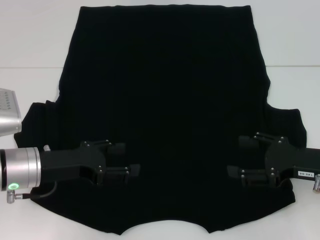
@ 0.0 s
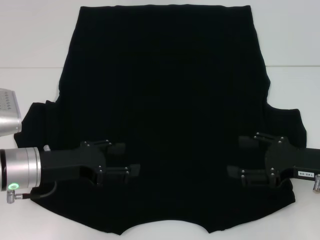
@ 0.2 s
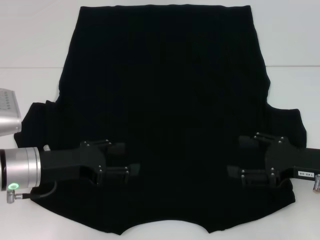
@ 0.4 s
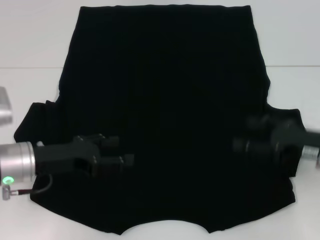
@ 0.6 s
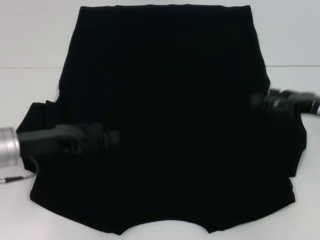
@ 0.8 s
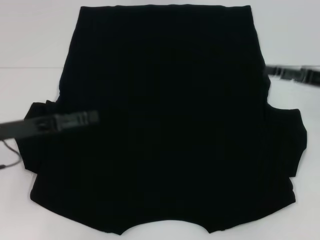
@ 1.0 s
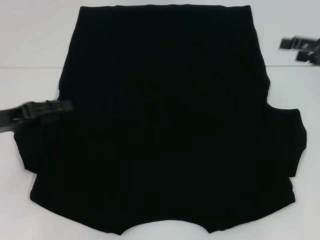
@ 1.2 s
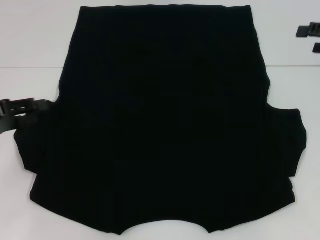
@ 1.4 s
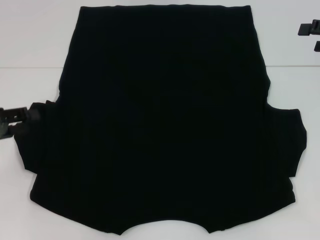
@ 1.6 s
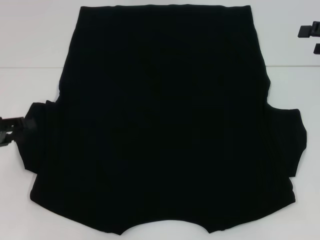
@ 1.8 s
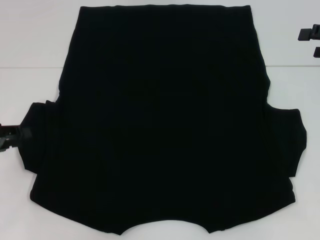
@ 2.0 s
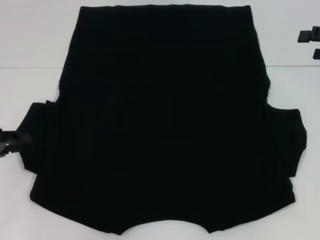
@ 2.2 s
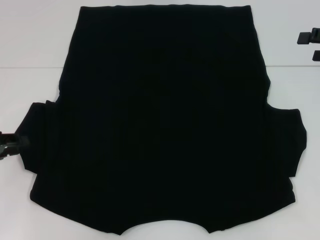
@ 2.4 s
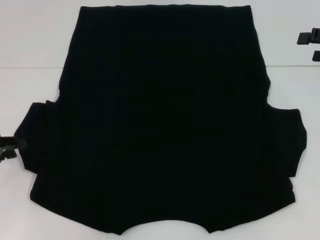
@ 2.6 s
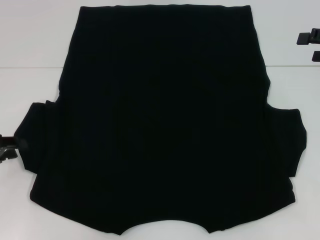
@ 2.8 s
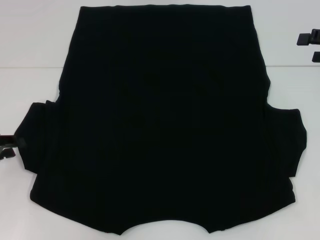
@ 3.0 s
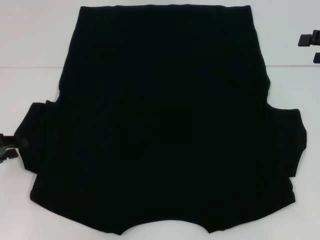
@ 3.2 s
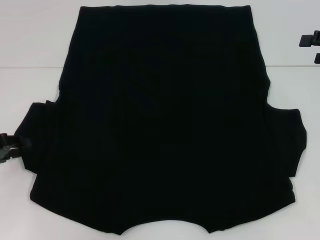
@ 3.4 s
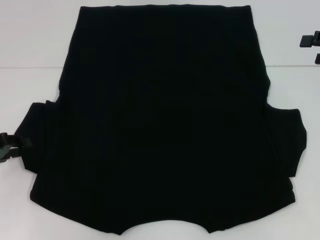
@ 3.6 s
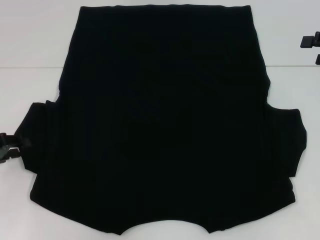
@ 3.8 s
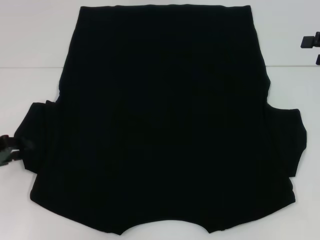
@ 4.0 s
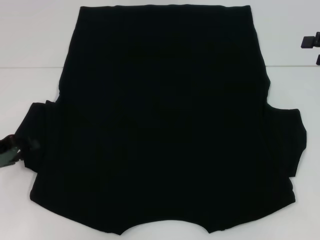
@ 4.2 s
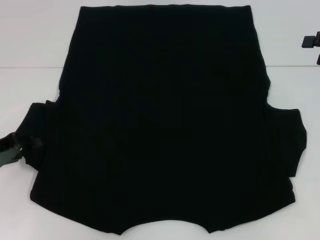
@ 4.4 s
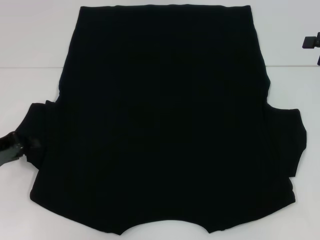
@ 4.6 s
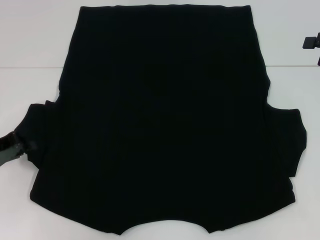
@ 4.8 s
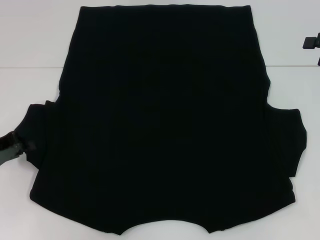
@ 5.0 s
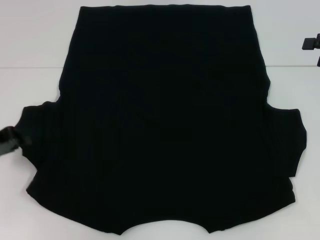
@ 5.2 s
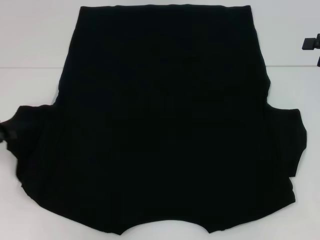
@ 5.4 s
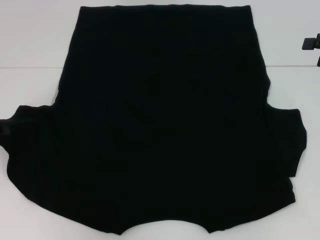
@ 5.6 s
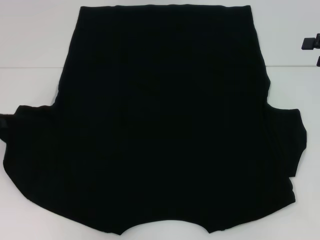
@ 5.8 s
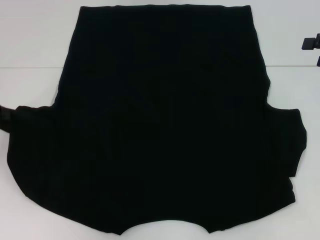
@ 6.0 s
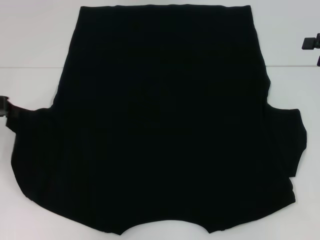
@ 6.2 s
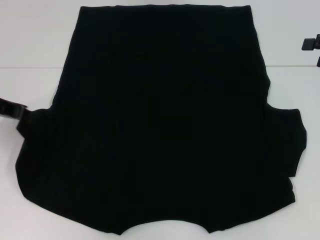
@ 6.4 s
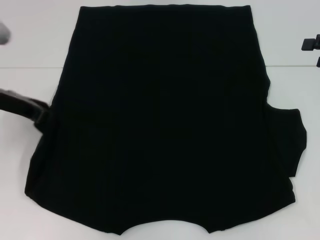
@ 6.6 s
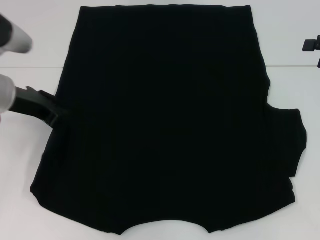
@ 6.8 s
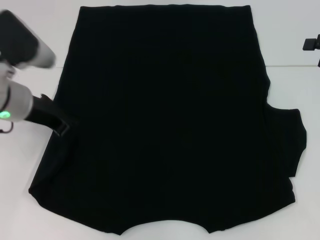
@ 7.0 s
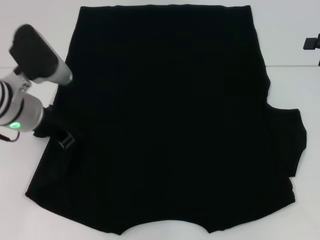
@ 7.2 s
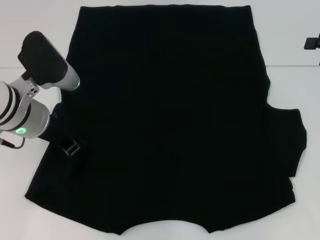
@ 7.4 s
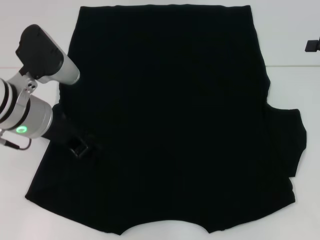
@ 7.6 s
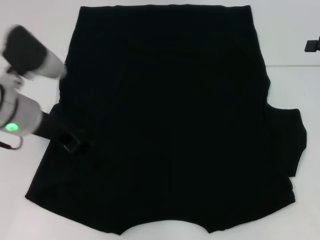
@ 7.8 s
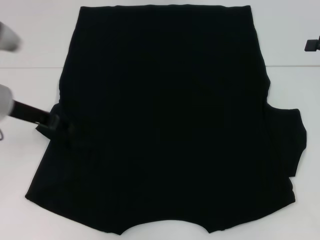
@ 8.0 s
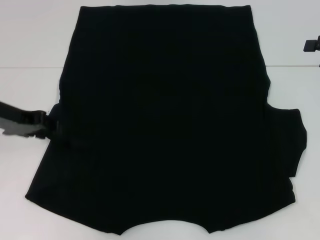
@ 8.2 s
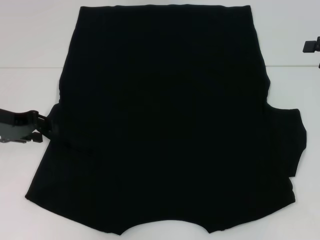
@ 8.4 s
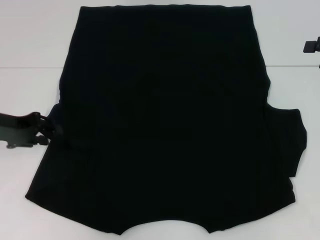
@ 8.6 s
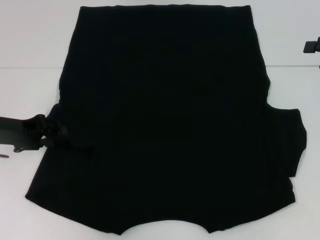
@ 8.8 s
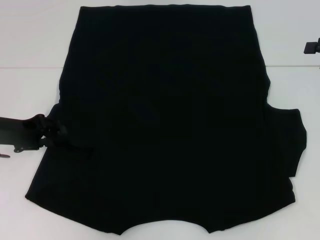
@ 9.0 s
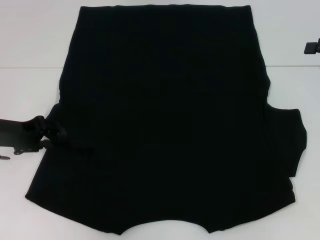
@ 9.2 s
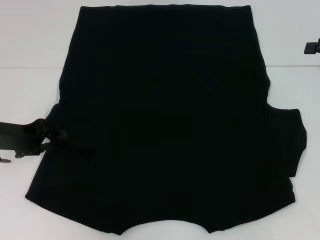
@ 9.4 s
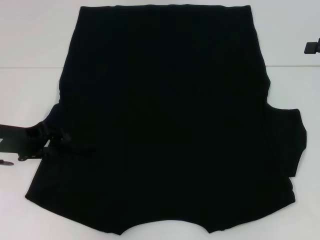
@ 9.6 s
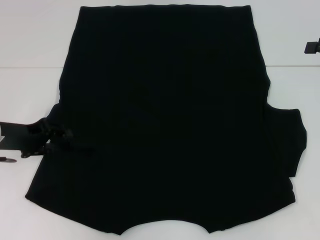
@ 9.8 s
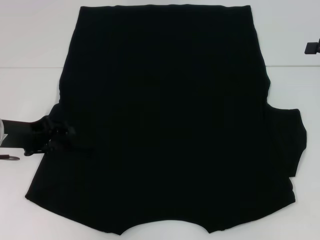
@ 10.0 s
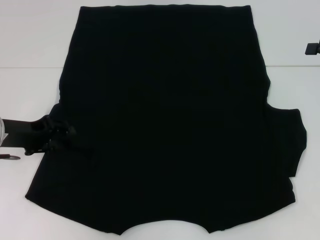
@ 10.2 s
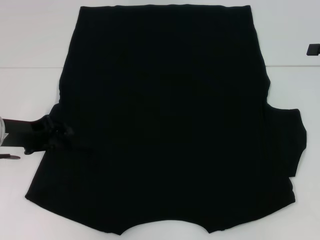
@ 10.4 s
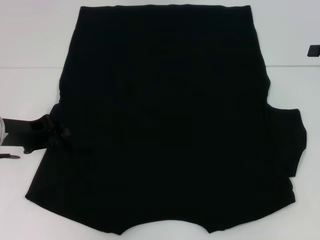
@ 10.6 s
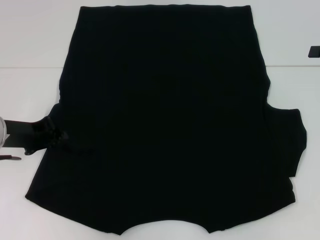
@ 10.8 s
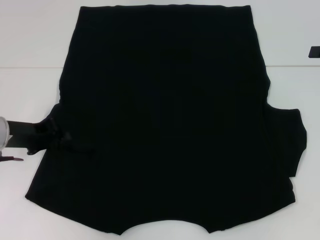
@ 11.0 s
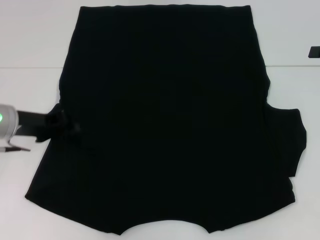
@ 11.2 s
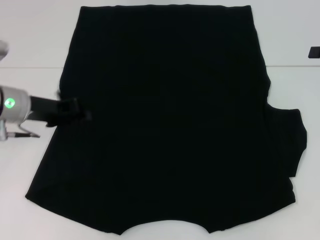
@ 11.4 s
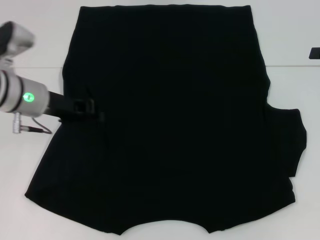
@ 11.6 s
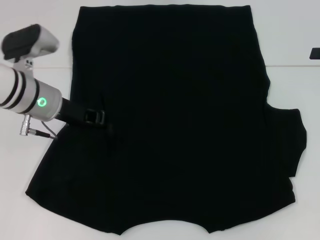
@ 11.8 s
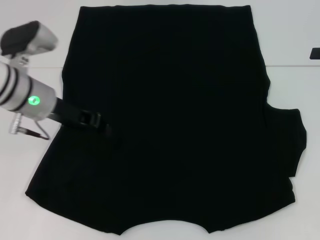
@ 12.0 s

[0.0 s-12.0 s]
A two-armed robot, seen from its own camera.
Step, 0.0 to 12.0 s: Fold the bottom left sleeve with your left hand.
0.0 to 1.6 s: The left gripper moves to the left, roughly 10 cm, while the right gripper moves upward, forward and to the right, roughly 20 cm.
1.6 to 4.4 s: The grippers stay close to where they were, moving slightly.
4.4 to 6.0 s: The left gripper heads upward, covering some 10 cm, and closes its fingers.
6.0 to 7.6 s: The left gripper travels to the right by approximately 15 cm.
7.6 to 9.0 s: The left gripper travels to the left and downward by about 10 cm, and opens up.
9.0 to 10.4 s: The grippers make only small movements.
10.4 to 12.0 s: The left gripper travels to the right by approximately 10 cm.

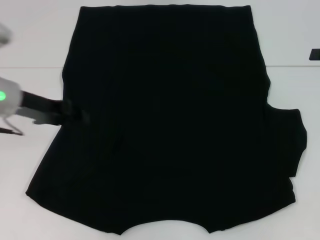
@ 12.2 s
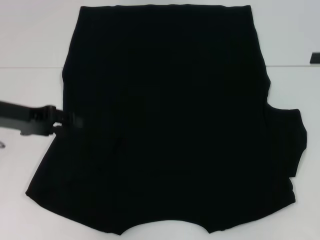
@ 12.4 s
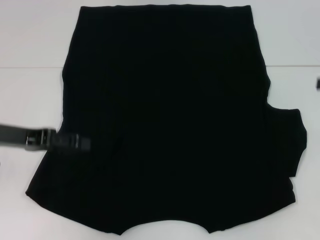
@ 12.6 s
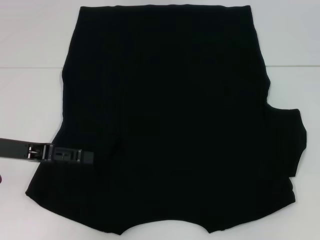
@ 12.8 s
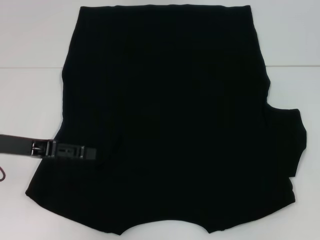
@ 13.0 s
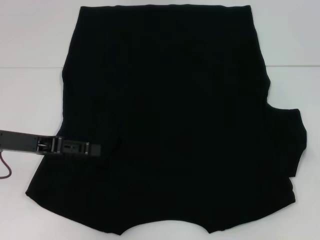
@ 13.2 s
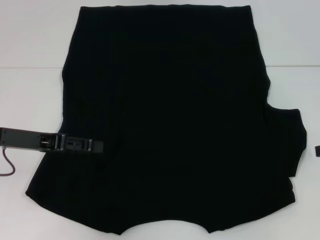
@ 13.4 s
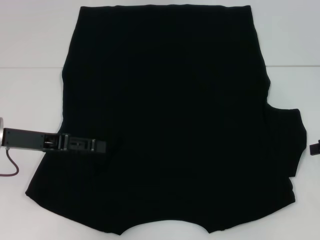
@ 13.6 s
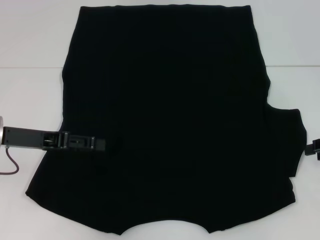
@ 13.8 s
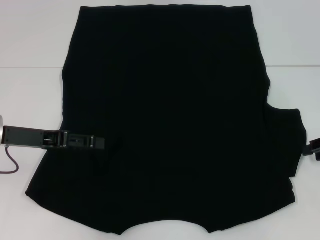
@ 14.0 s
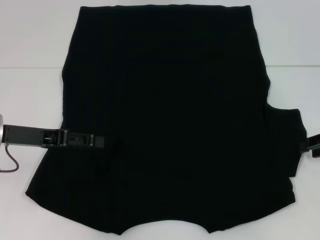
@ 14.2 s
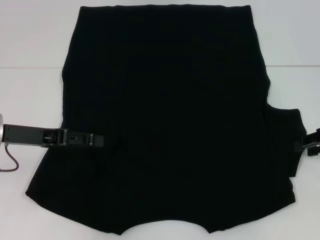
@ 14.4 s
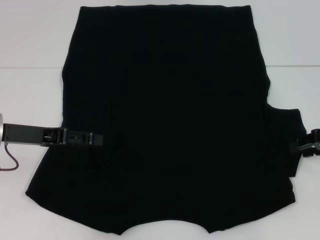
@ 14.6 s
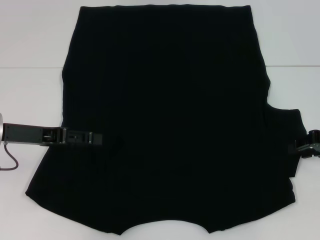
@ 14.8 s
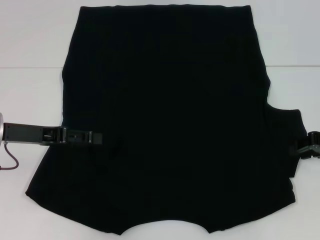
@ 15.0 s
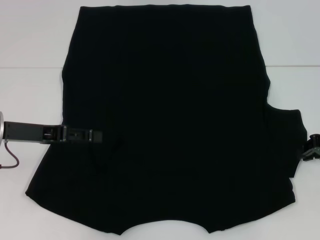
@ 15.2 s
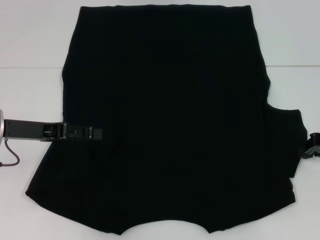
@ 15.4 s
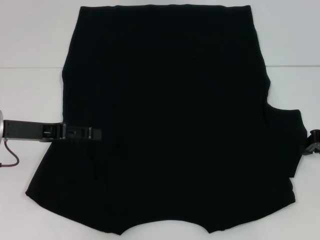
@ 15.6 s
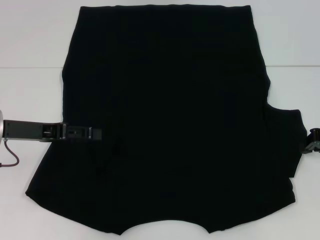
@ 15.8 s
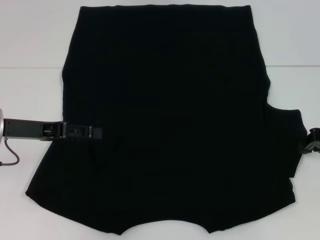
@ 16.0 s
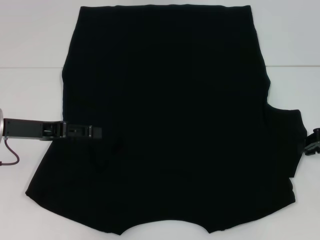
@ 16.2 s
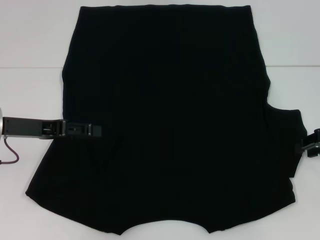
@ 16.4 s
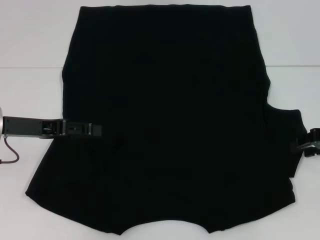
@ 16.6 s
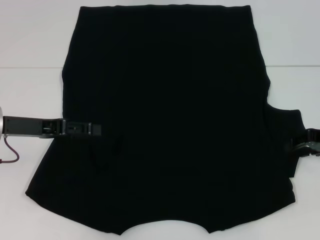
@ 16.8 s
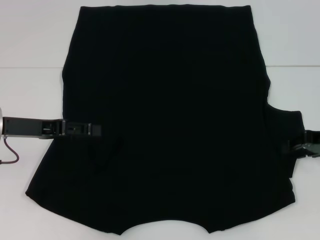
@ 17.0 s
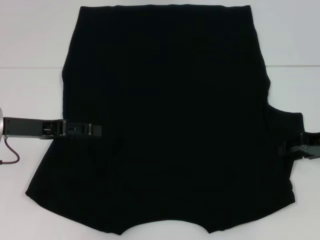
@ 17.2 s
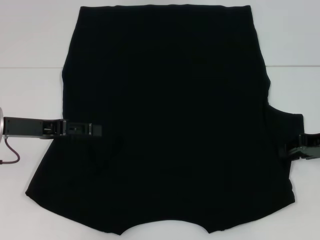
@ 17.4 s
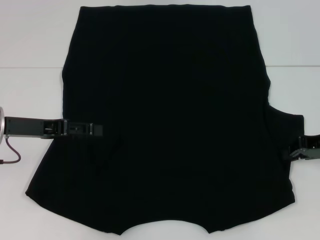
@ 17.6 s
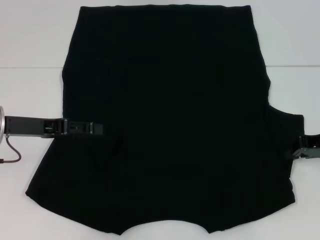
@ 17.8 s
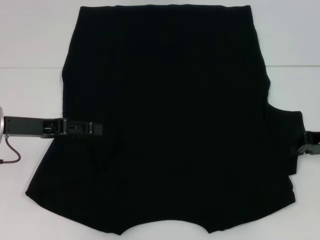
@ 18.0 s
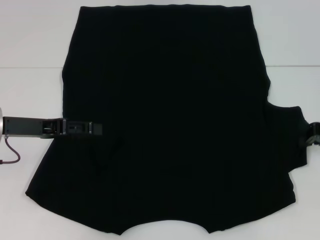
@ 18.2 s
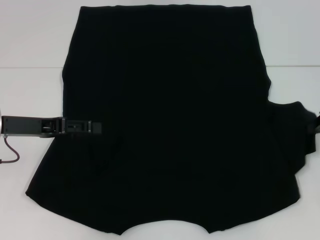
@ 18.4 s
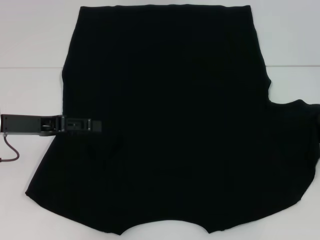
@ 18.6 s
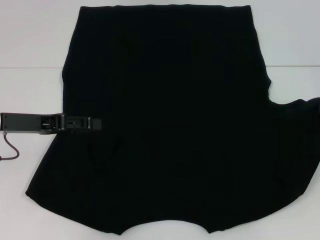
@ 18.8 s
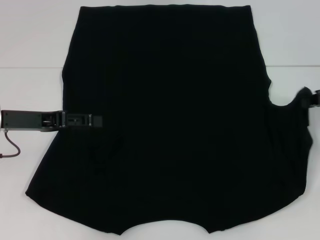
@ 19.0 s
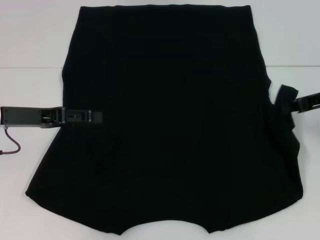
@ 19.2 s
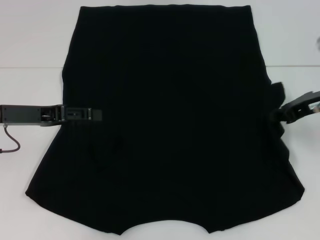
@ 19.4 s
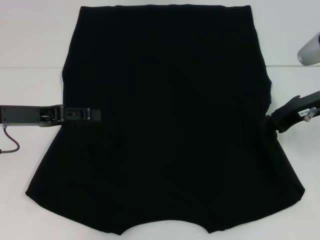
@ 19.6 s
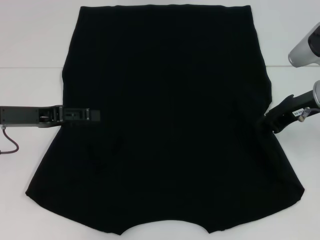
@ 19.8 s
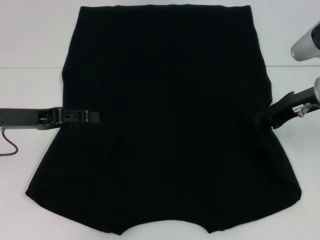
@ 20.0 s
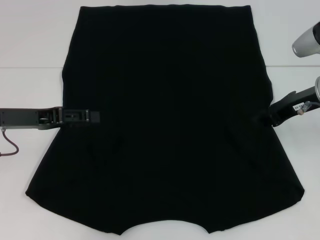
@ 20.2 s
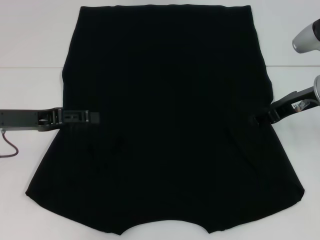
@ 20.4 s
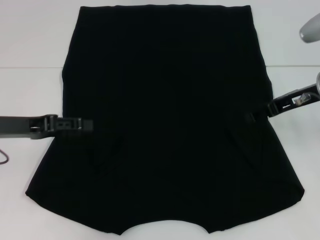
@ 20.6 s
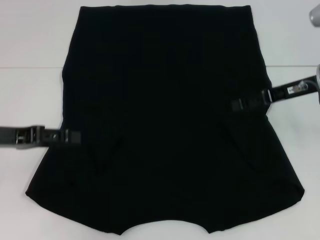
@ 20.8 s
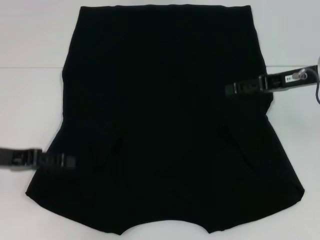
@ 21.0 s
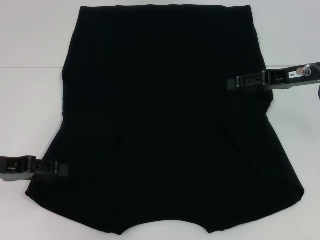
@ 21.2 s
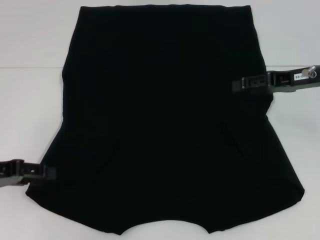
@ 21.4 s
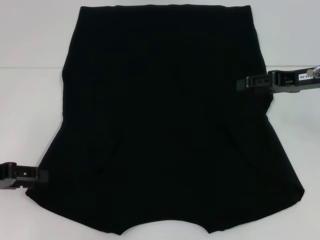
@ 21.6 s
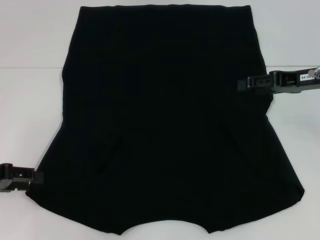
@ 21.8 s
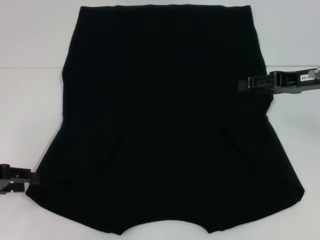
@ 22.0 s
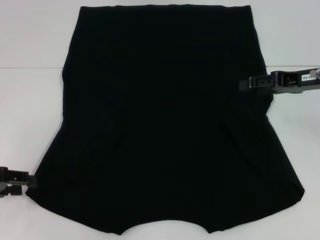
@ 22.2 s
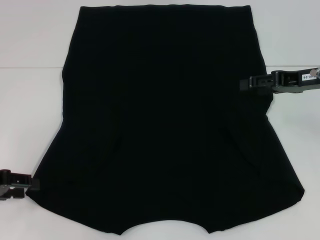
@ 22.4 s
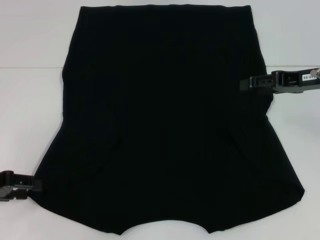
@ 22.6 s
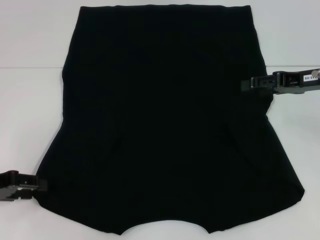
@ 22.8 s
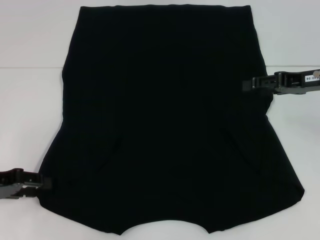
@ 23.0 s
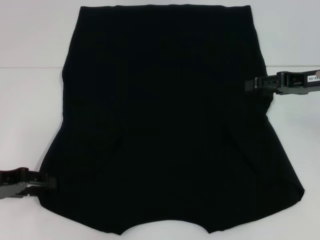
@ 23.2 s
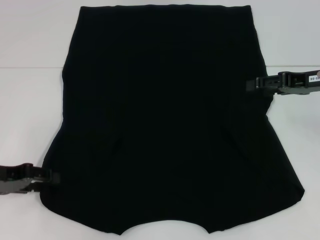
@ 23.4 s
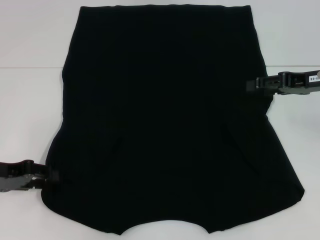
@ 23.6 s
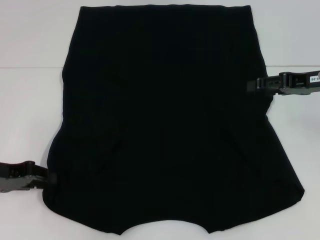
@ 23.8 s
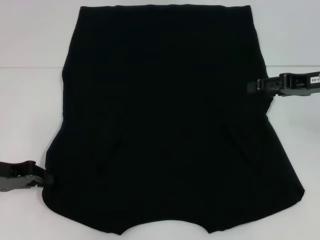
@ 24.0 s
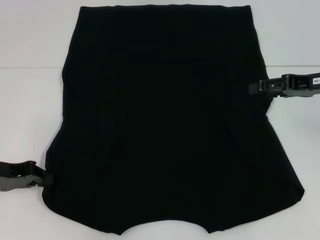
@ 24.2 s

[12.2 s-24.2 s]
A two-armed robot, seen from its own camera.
Step, 12.2 to 20.2 s: Fold the bottom right sleeve with your right hand.
12.2 to 13.8 s: The left gripper goes roughly 5 cm backward, and opens.
13.8 to 15.2 s: The grippers move only a little.
16.6 to 18.2 s: The right gripper closes its fingers.
18.2 to 19.8 s: The right gripper is displaced to the left by approximately 10 cm.
19.8 to 21.2 s: The right gripper opens its fingers. Meanwhile the left gripper ends up about 5 cm from where it was.
21.2 to 22.6 s: There are only small adjustments of the grippers.
22.6 to 24.2 s: The left gripper closes up.
